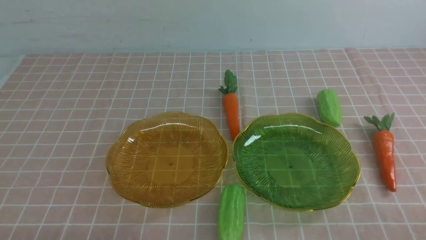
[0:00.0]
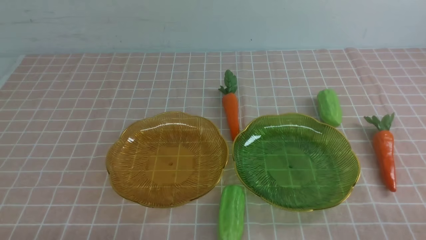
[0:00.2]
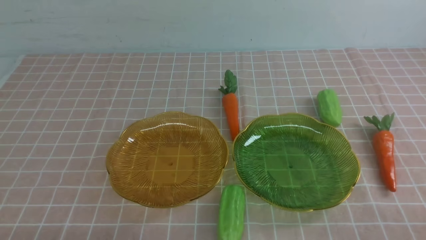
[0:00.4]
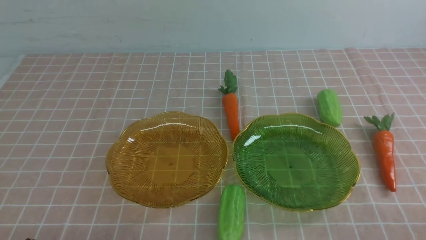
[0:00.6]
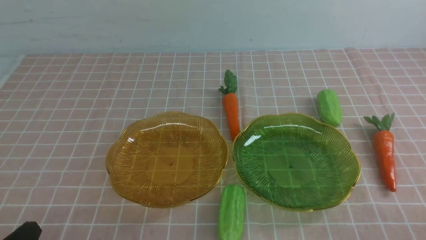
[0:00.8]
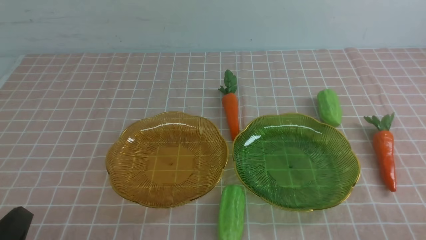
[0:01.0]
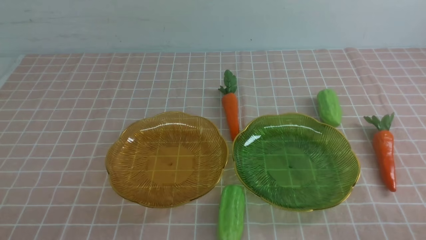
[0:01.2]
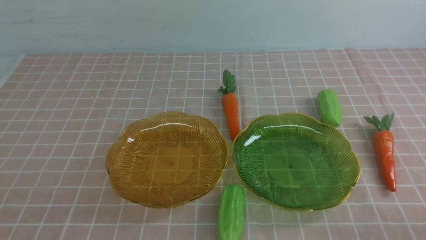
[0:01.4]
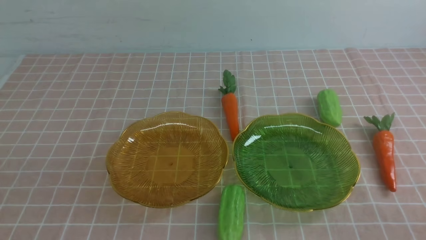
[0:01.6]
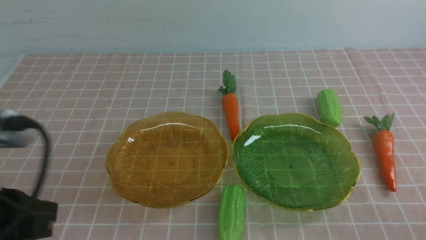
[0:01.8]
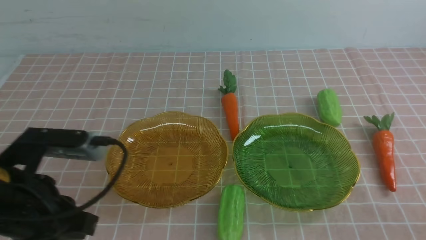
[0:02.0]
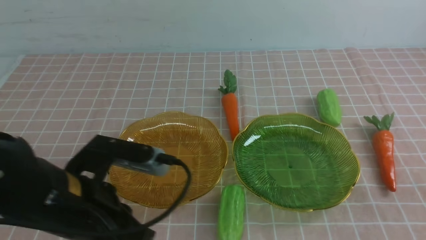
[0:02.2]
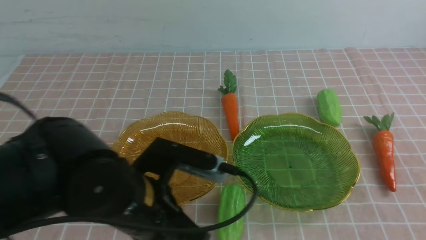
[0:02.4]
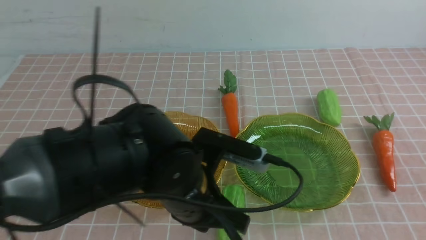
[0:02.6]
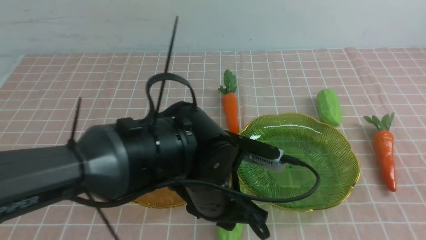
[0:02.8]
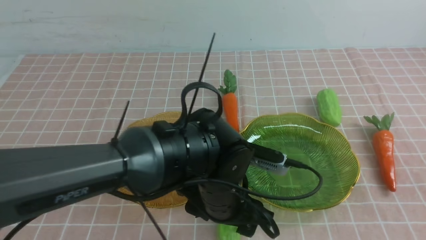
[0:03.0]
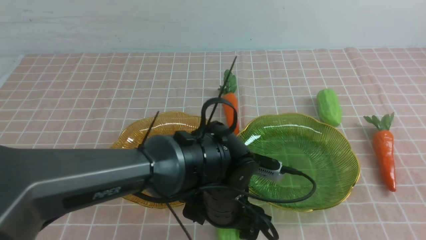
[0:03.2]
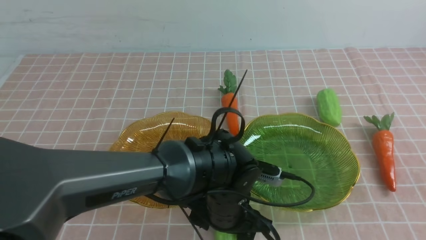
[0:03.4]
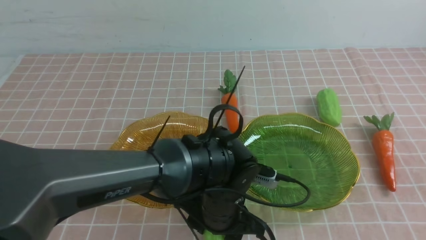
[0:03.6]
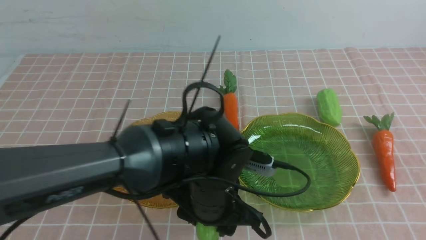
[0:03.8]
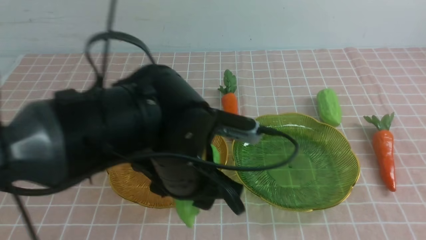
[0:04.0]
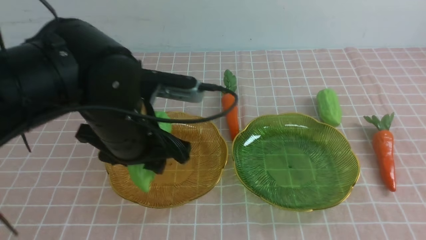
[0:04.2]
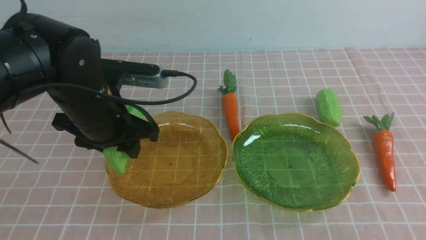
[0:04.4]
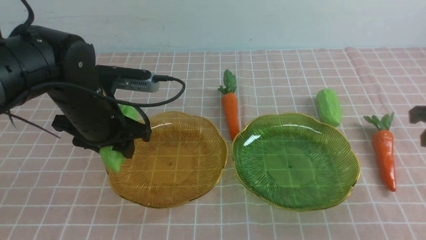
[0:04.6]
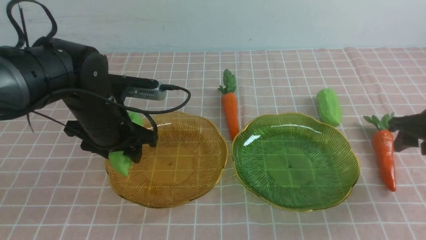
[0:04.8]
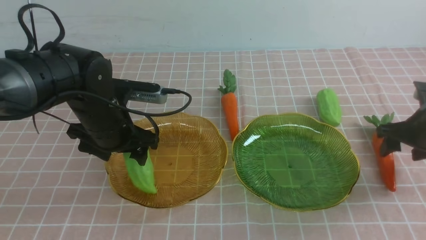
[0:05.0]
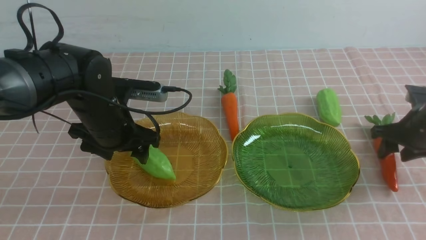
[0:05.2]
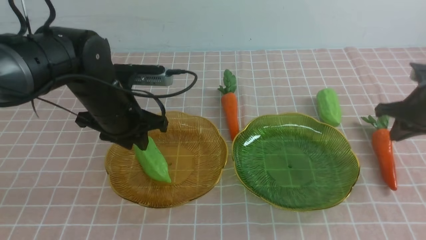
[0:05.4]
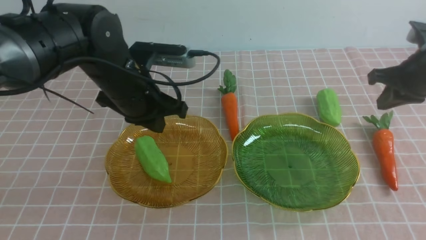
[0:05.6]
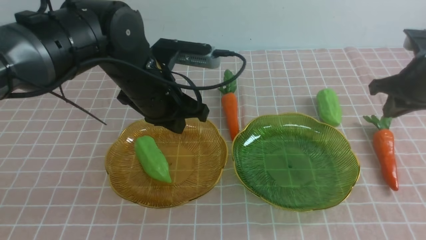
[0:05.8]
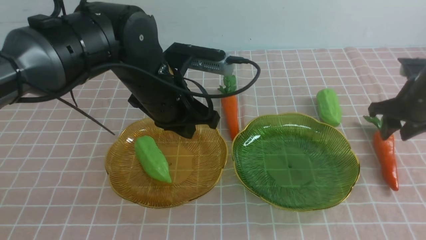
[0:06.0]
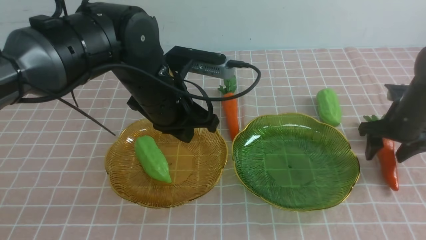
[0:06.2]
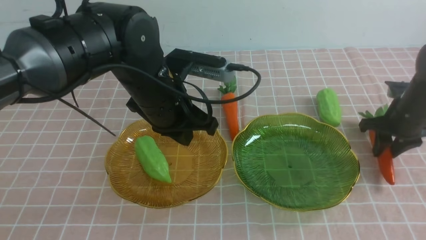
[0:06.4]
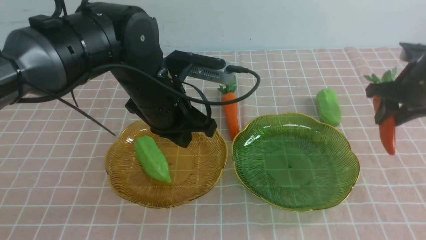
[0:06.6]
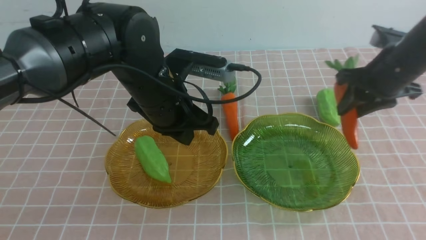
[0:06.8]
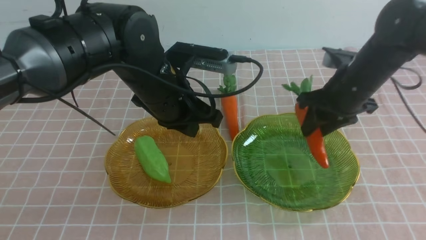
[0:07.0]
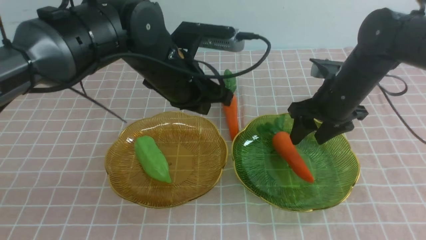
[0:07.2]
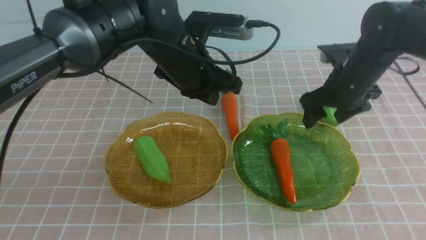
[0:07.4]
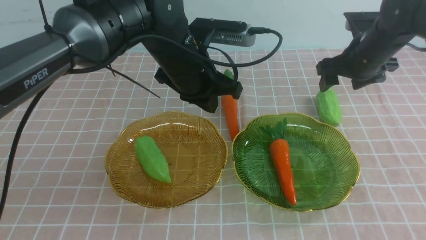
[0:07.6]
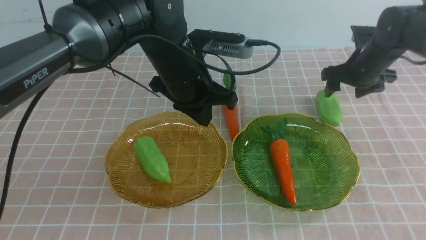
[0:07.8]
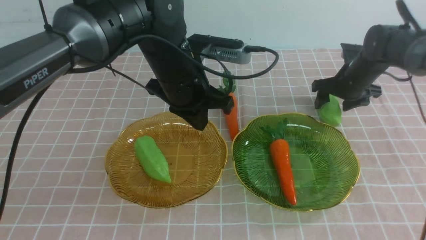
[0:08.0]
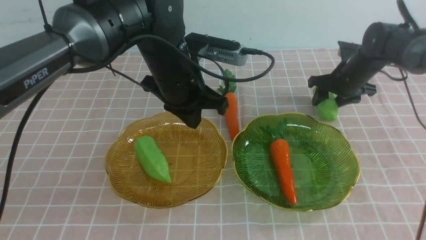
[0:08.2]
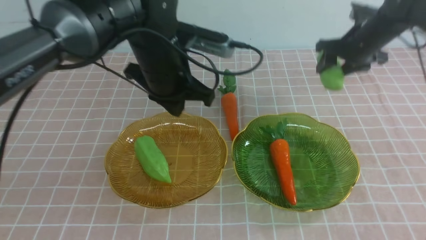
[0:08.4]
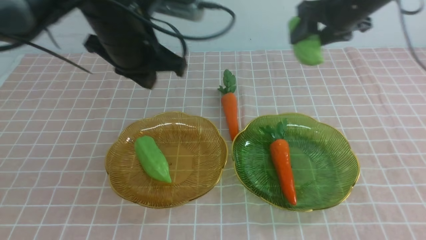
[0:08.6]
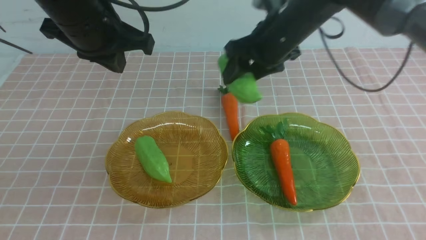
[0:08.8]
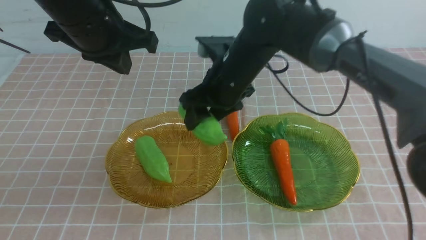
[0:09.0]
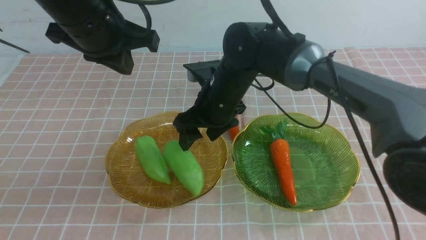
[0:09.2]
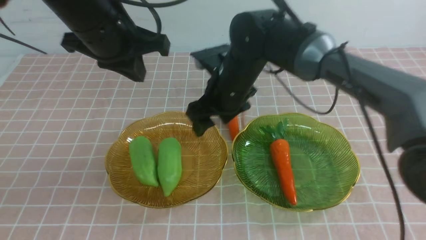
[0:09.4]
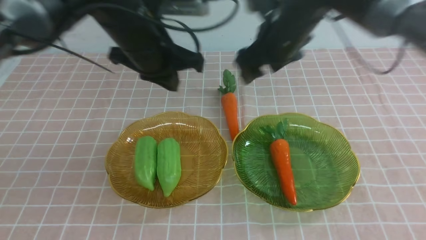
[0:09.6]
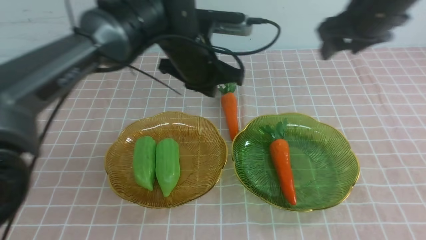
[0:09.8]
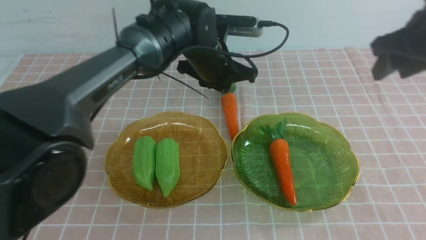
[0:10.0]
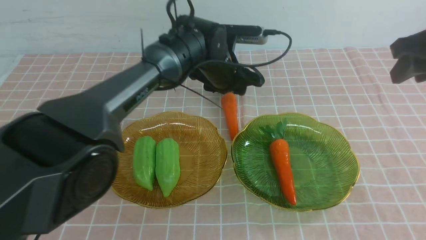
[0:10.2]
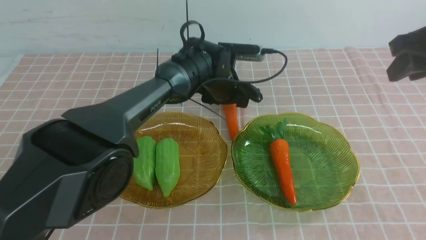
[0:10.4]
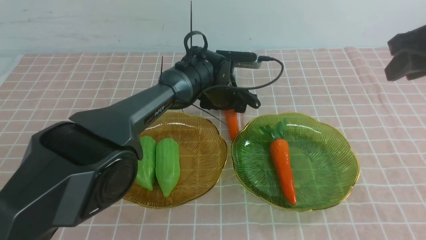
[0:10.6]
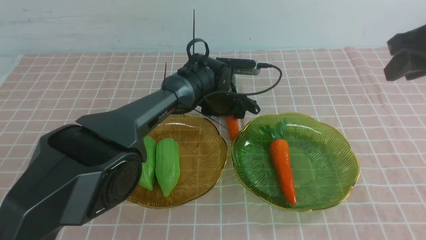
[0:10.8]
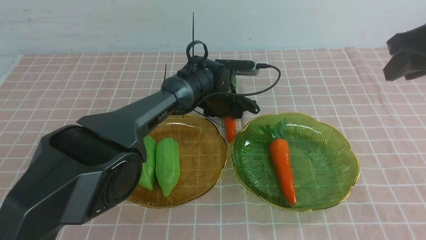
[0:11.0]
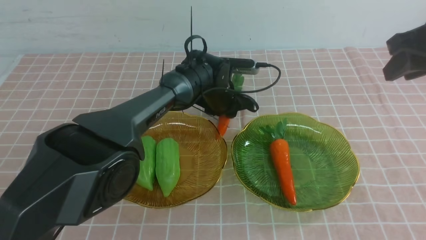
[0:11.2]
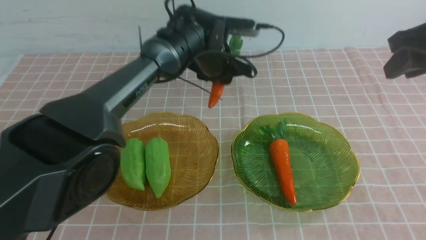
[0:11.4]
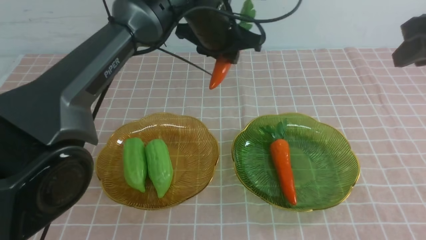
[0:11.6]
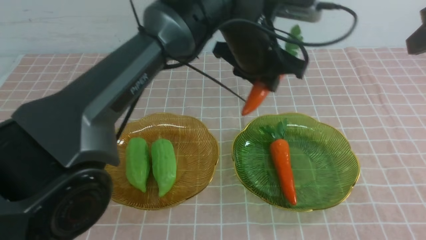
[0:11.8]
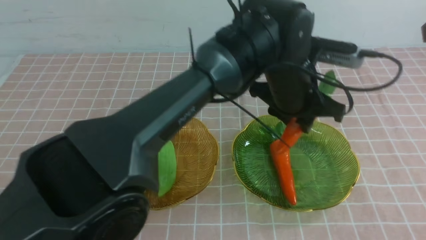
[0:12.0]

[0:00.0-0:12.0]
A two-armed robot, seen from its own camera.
Step, 0:00.0 to 0:05.0: use the left arm to grab a chayote and put it into the left plate.
Step, 0:05.2 to 0:07.0: use the right arm to grab a carrot and put it into the right plate.
Step, 0:07.2 to 0:09.0: Grab the chayote with your right arm and put it on the left plate.
0:01.6 to 0:03.0: The left gripper shifts about 30 cm to the right, downward and forward, and opens; the right gripper shifts roughly 10 cm upward.
0:03.0 to 0:04.4: The right gripper moves forward, roughly 15 cm; the left gripper travels to the left and upward by about 15 cm.
0:04.4 to 0:06.0: The left gripper moves to the right, some 5 cm, and closes its fingers. Meanwhile the right gripper heads forward and downward, covering approximately 20 cm, and opens.
0:06.0 to 0:07.6: The right gripper is displaced to the left and forward by about 10 cm, and opens, while the left gripper shifts by about 5 cm.
0:07.6 to 0:09.0: The right gripper goes roughly 20 cm to the left. Meanwhile the left gripper heads to the left and upward, covering roughly 10 cm.
0:09.0 to 0:10.4: The right gripper travels to the right and upward by roughly 25 cm, and closes its fingers; the left gripper heads downward, forward and to the right, covering roughly 30 cm, and opens.
0:10.4 to 0:12.0: The left gripper goes some 20 cm backward, to the right and upward, and closes, while the right gripper is displaced backward and upward by approximately 10 cm.

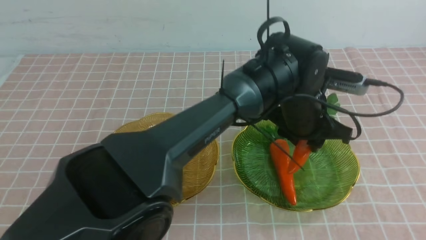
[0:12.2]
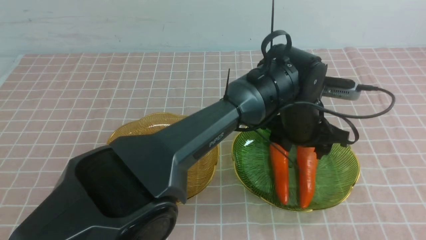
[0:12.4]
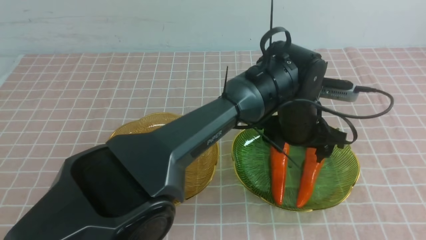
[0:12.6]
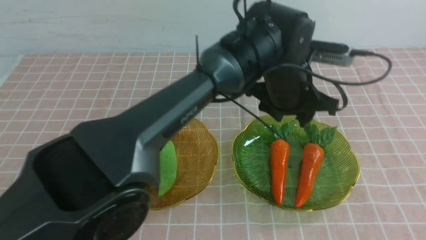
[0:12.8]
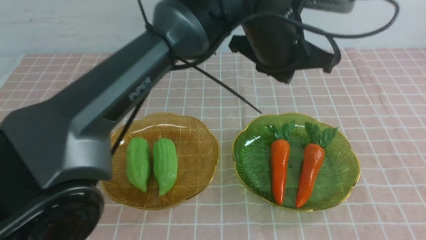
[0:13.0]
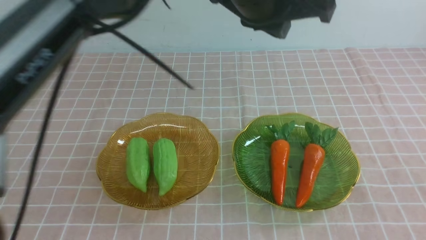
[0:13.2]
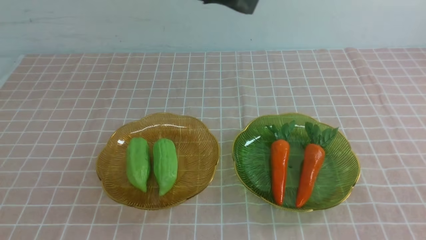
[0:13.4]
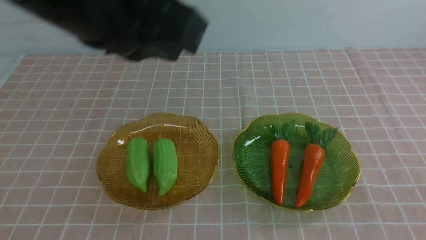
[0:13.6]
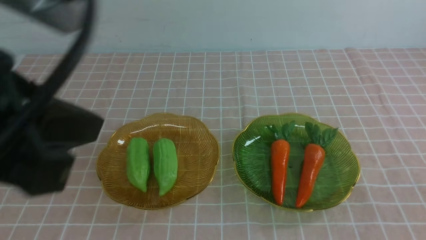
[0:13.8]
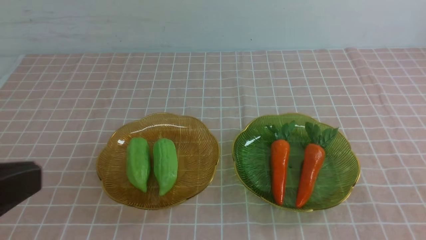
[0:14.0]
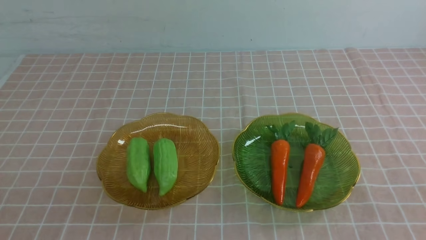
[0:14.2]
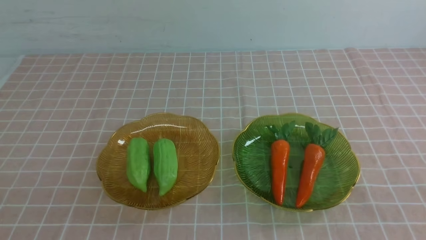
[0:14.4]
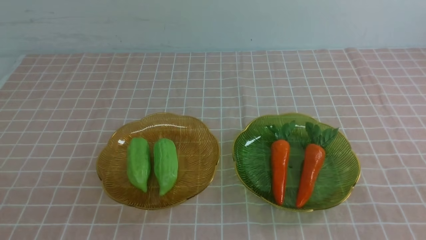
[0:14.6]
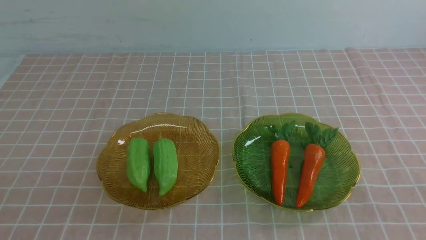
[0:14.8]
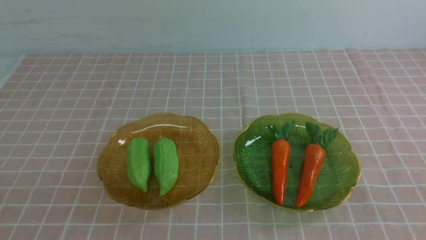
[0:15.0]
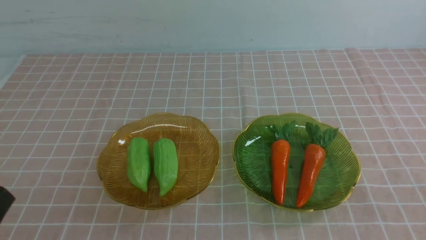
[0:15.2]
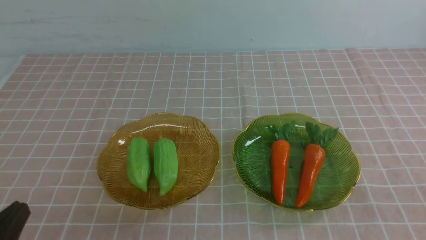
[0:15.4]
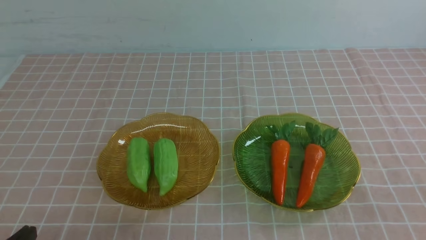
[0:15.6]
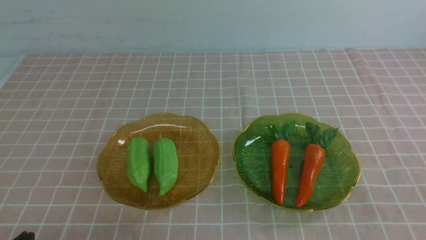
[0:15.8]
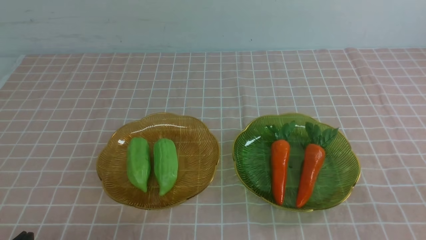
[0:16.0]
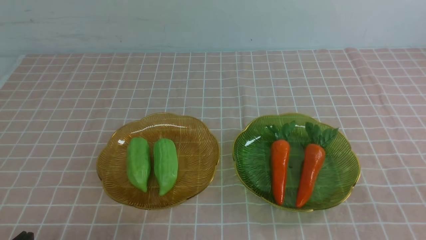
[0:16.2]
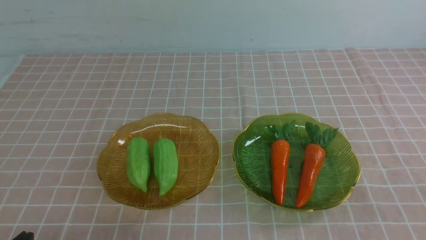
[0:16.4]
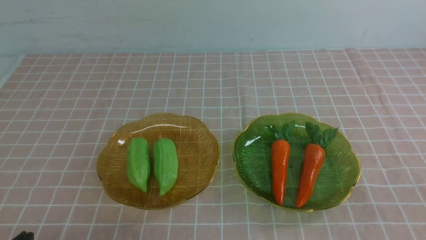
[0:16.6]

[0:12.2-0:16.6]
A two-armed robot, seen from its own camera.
0:12.2 to 0:13.6: The left gripper heads upward, to the left and backward, covering about 40 cm, and closes its fingers. The right gripper goes some 25 cm backward and downward, and closes up.
0:13.6 to 0:15.2: The left gripper moves downward, to the left and backward, roughly 30 cm.
